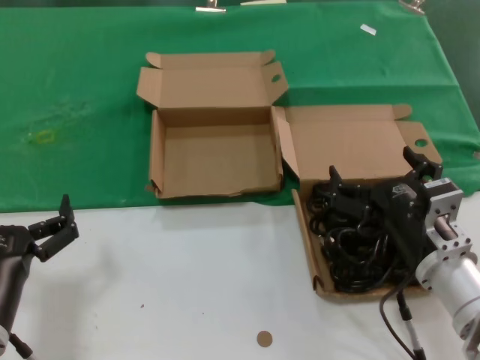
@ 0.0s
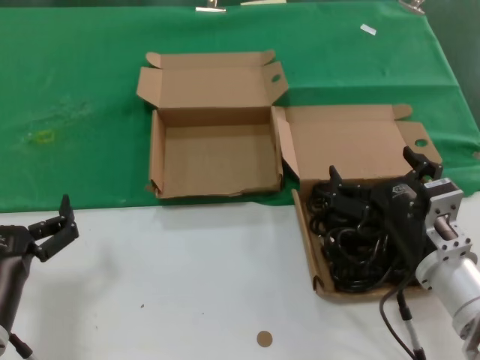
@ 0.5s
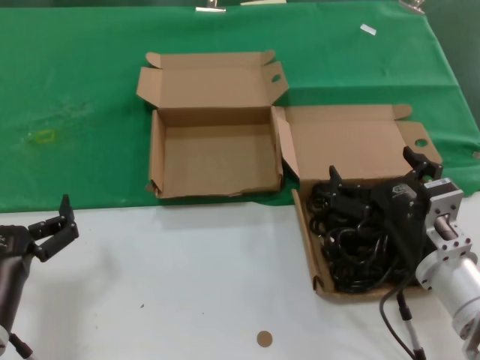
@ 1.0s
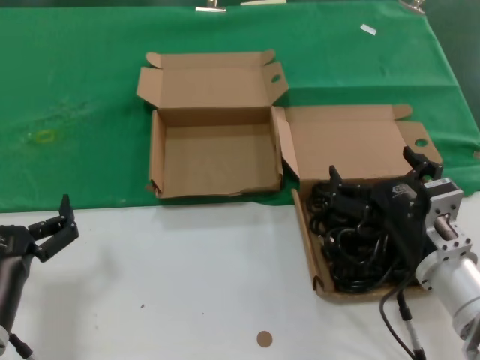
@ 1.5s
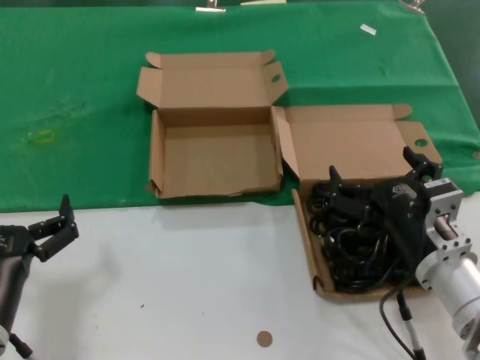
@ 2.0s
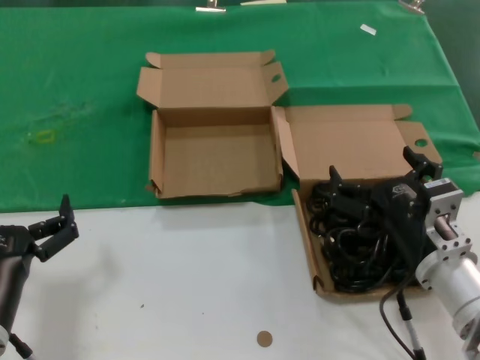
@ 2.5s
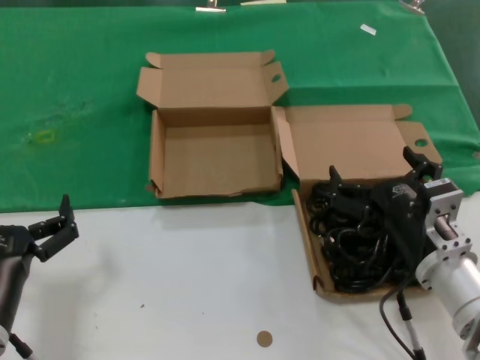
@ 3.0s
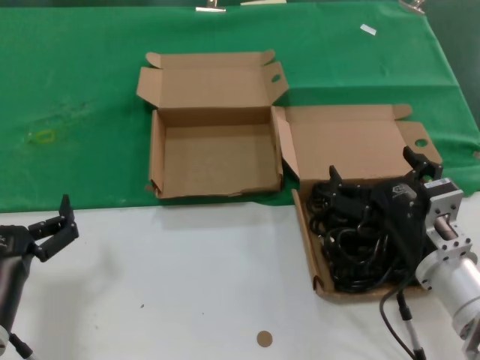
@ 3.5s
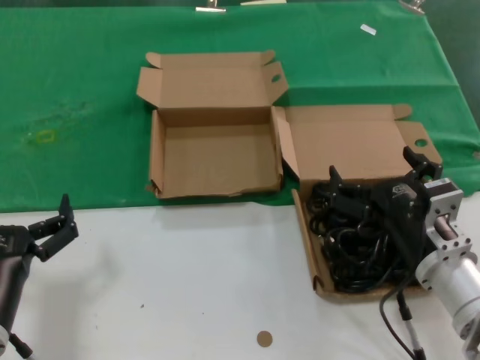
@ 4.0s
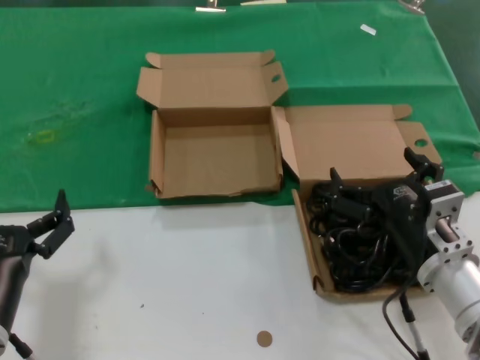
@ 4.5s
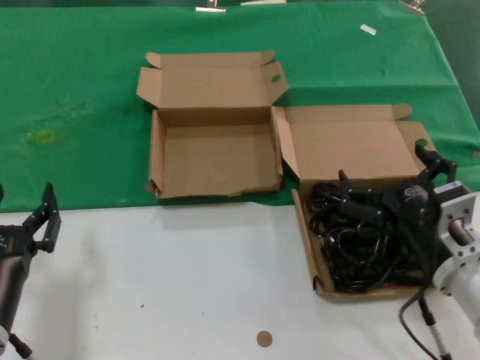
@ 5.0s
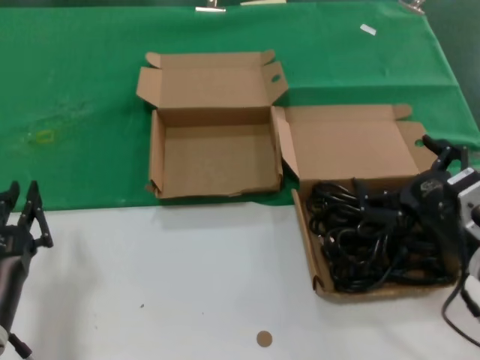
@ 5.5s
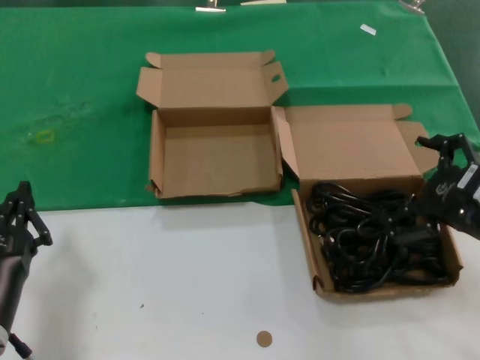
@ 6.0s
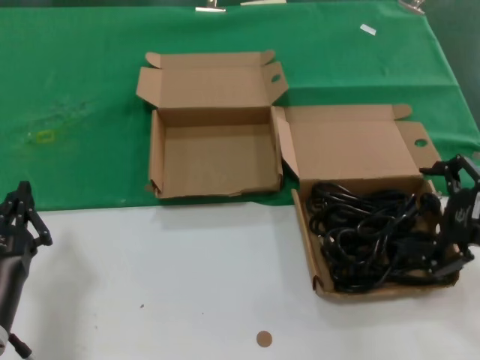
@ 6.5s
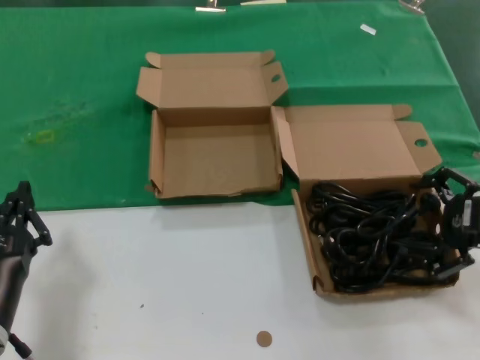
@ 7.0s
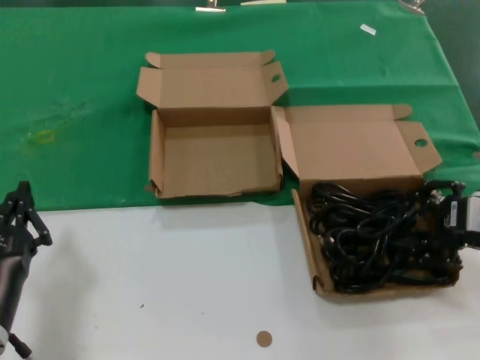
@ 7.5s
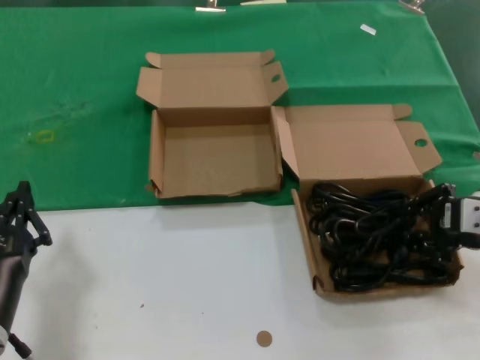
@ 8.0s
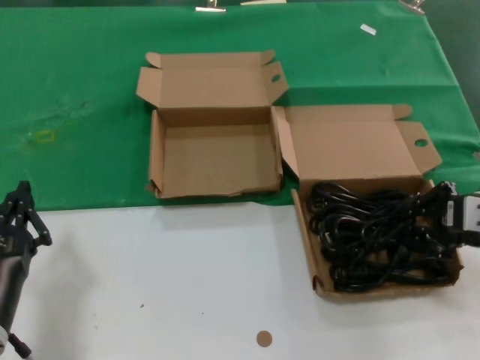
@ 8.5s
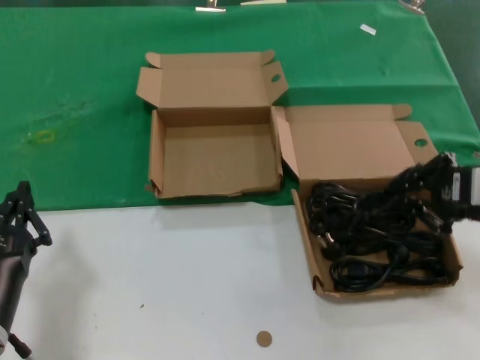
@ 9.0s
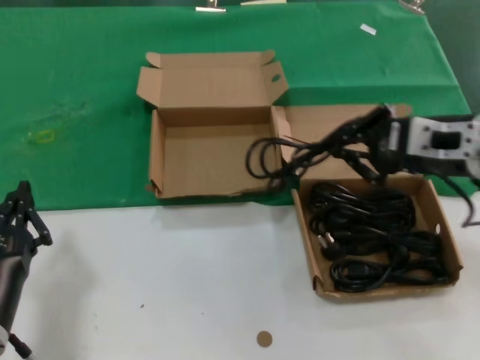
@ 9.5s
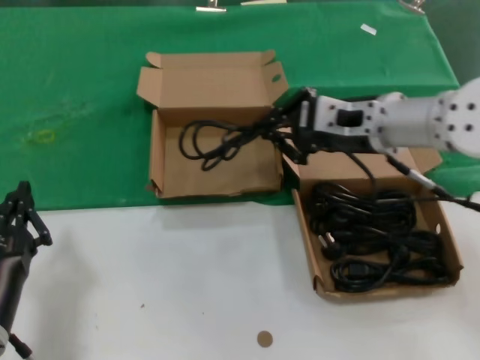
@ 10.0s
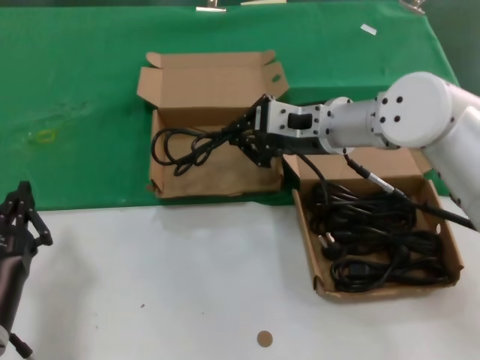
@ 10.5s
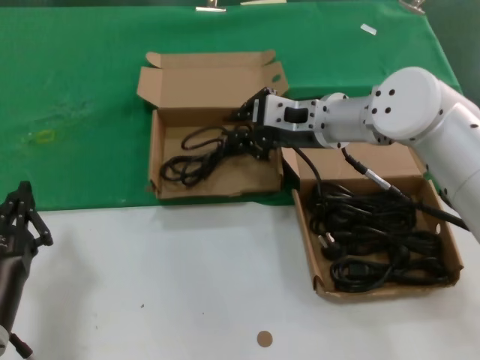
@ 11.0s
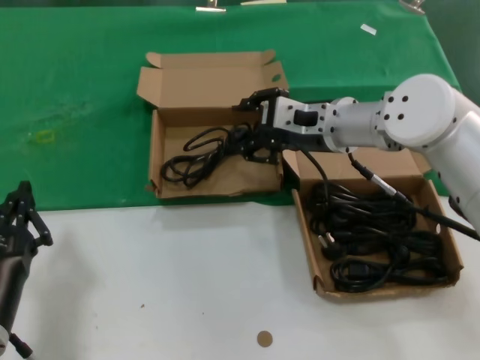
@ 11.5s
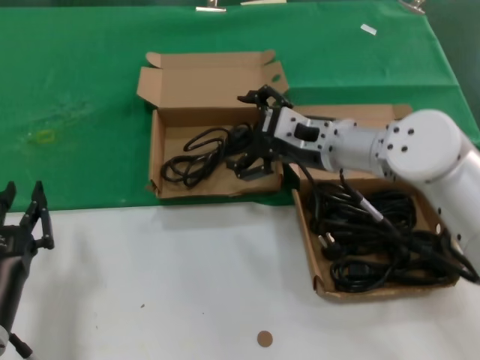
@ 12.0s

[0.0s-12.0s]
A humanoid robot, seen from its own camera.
Task of the whole recording: take the parts from the box containing them and put them into an empty box.
Step, 0.0s to 8.0s: Grasp the data cable.
Step, 8.5s to 11.0s: Place the data cable in the another box.
0.0s to 4.0s: Both hands stay about where they are.
4.0s to 6.0s: The right hand travels to the right and upward by about 15 cm.
6.0s to 8.0s: The right hand heads forward, covering approximately 5 cm.
8.0s to 10.0s: The right hand shifts about 20 cm to the left, forward and upward.
10.0s to 12.0s: The right hand moves downward, roughly 5 cm.

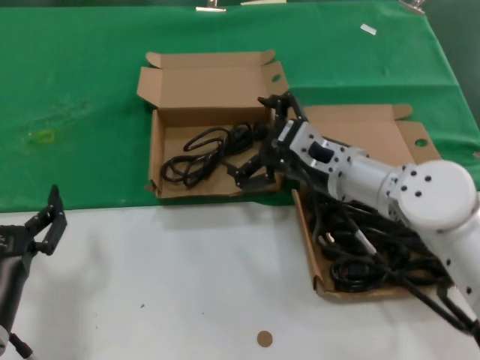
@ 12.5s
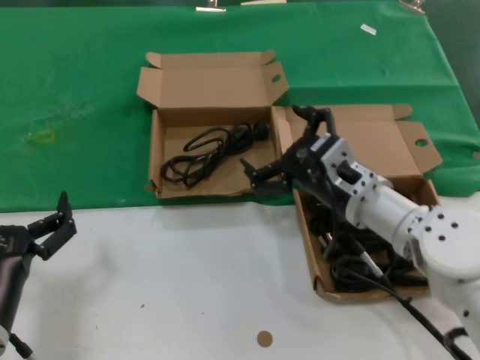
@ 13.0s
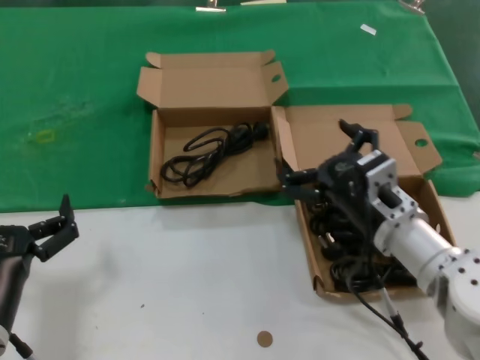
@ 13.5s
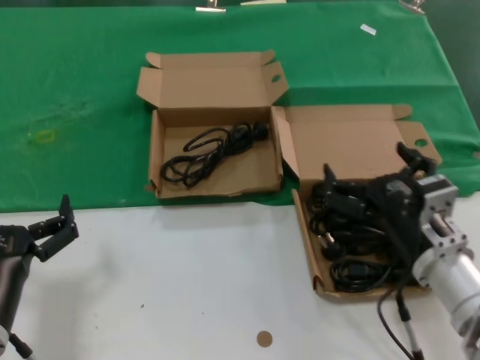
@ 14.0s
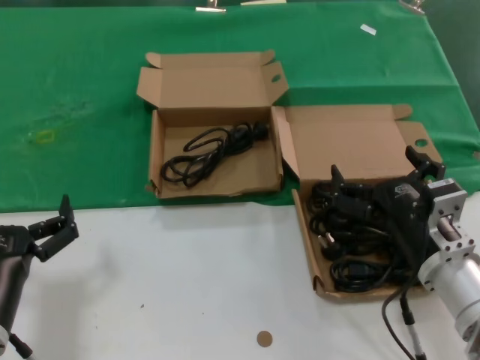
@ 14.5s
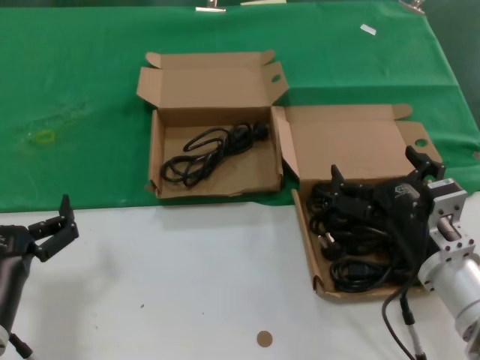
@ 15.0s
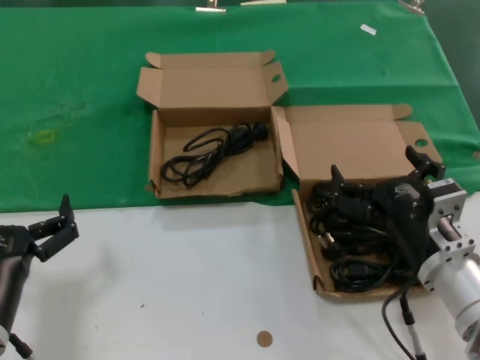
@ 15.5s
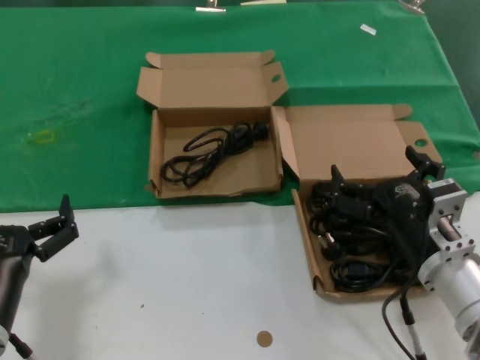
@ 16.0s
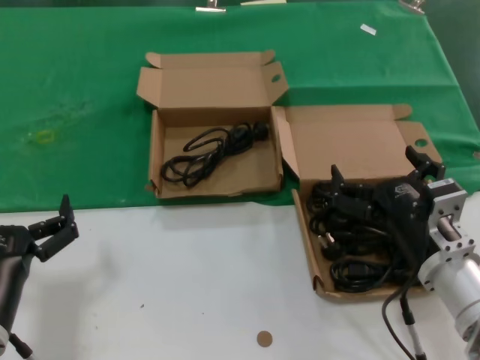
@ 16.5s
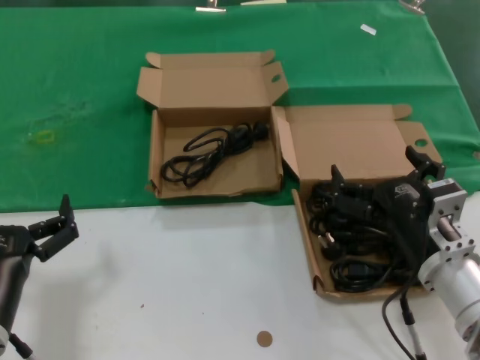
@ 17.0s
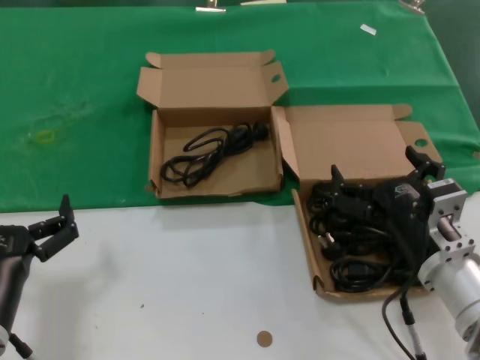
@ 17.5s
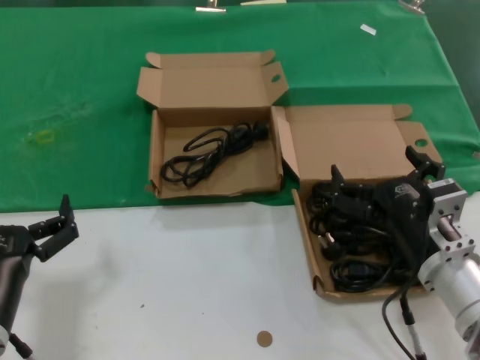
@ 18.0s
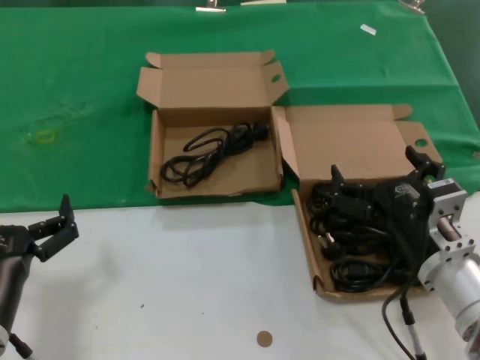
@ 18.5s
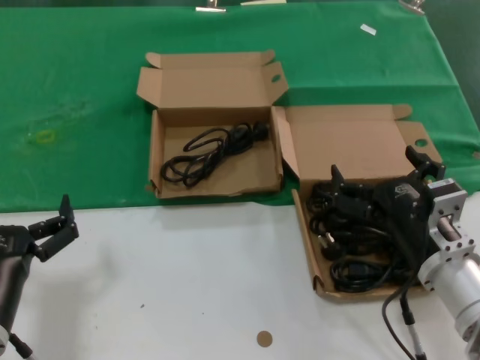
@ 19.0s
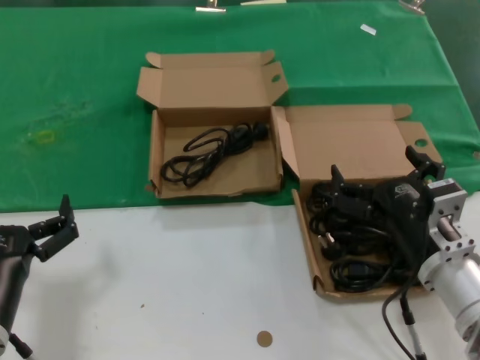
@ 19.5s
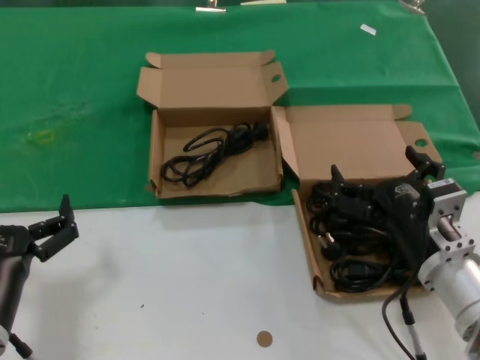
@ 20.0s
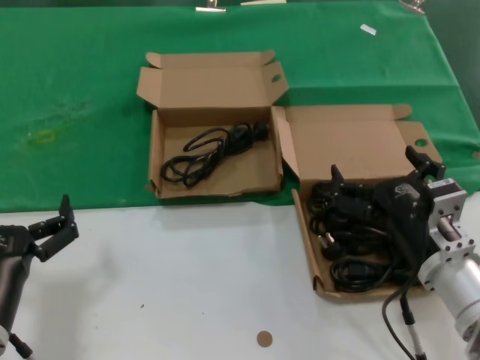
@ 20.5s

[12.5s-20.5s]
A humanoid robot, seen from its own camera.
Task of the whole recording: take the parts from the box containing them and put them into an empty box.
12.5s to 14.5s: The right hand heads backward, downward and to the right, covering about 20 cm.
14.5s to 20.5s: The two hands keep their place.

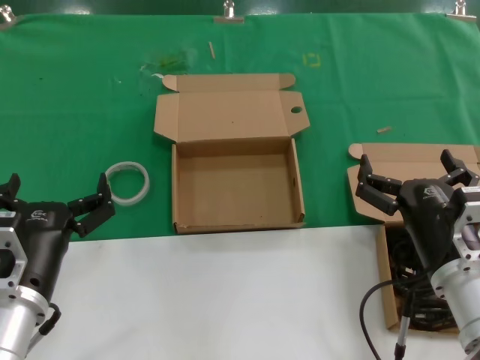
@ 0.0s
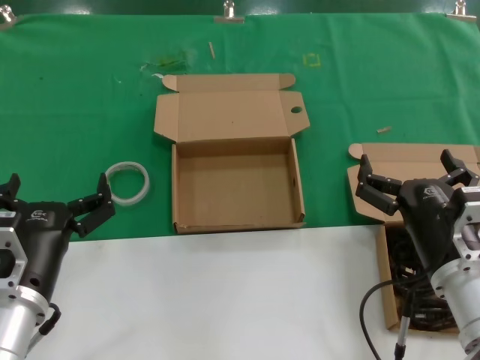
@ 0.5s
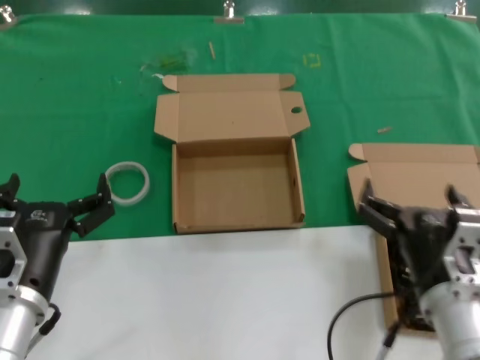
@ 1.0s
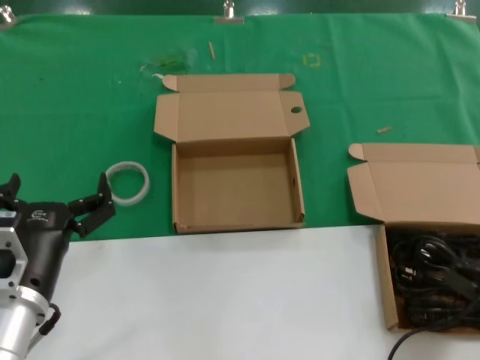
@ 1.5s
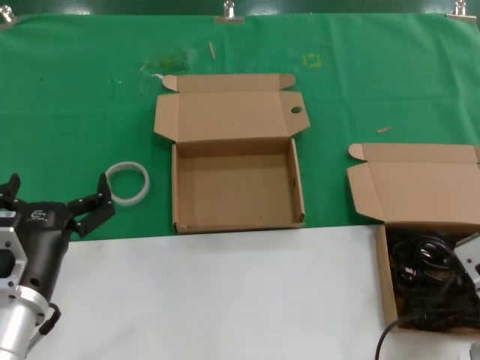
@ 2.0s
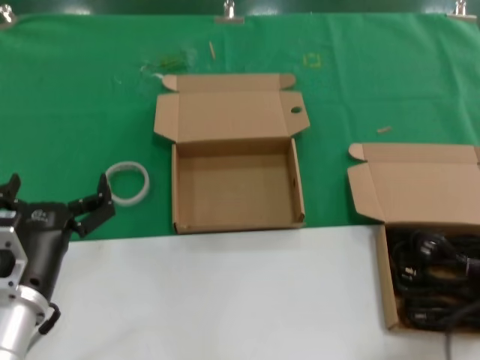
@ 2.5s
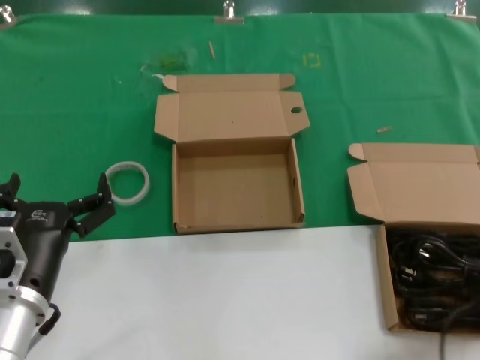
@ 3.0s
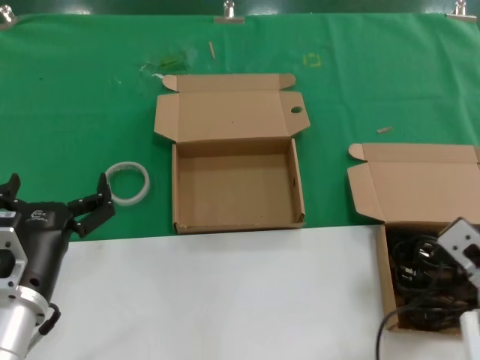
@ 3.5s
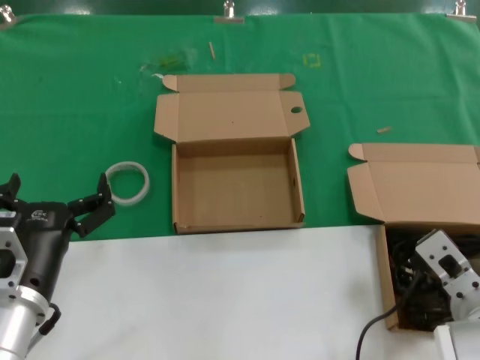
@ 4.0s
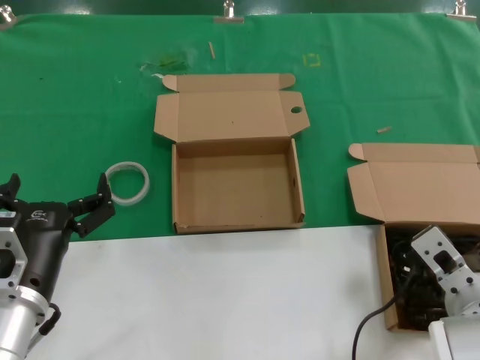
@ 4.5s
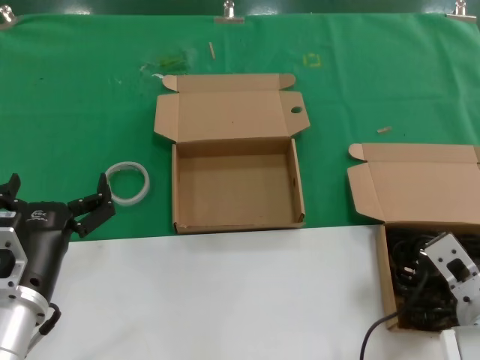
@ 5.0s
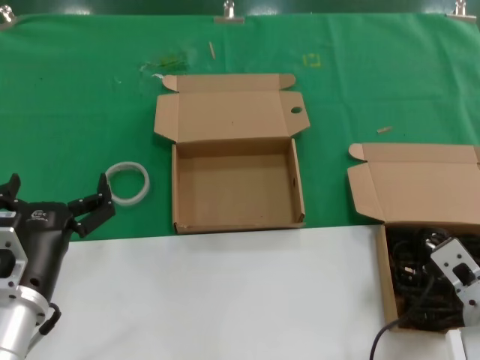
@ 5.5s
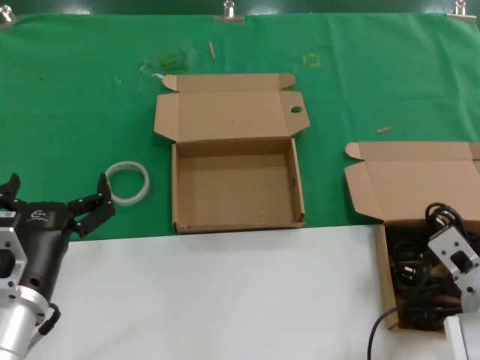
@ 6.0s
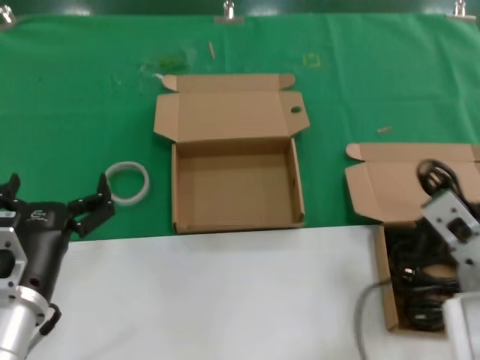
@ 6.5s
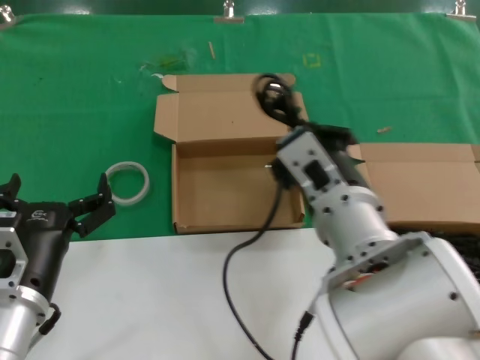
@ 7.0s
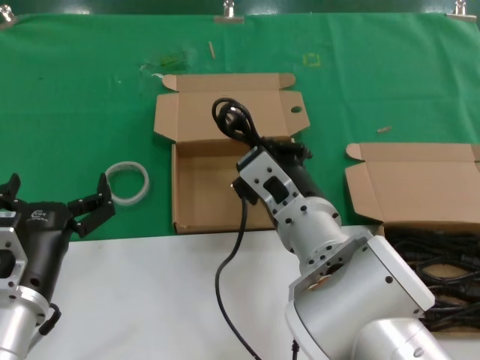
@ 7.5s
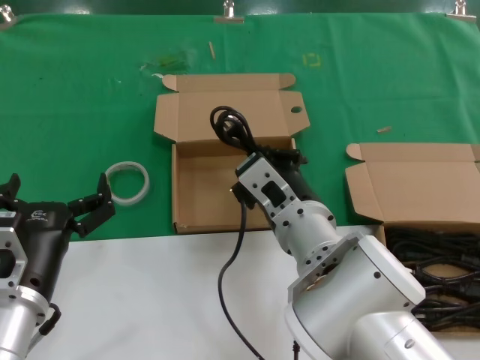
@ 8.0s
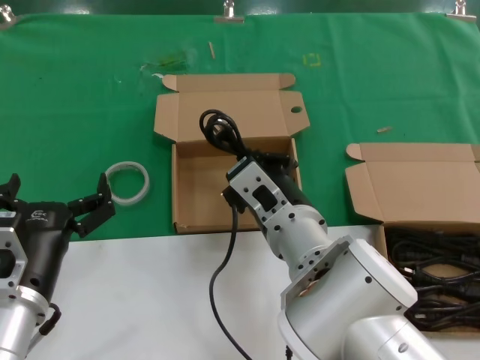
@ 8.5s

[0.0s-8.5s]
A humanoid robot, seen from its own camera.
Task of the whole recording: take the parts from the box containing them and put them into an empty box.
Step, 0.0s to 5.5s: Grasp the data cable.
2.0s to 4.0s: The right hand travels to the right and back again, some 5 cm each way.
4.0s to 6.5s: The right hand moves upward, approximately 5 cm.
6.5s to 8.5s: The right hand moves to the left, about 15 cm.
